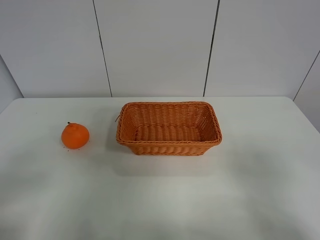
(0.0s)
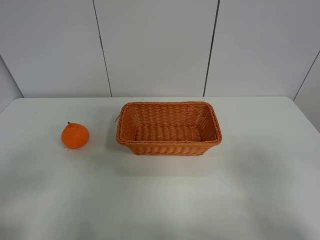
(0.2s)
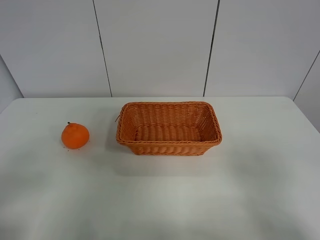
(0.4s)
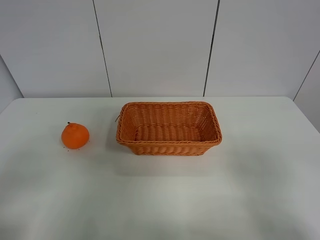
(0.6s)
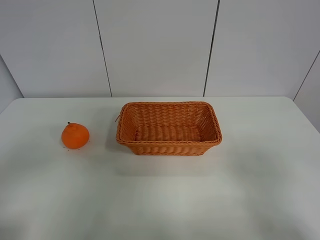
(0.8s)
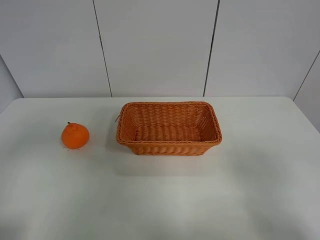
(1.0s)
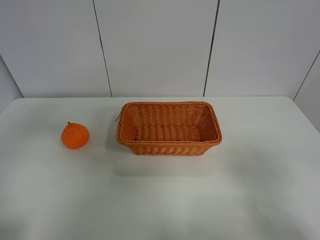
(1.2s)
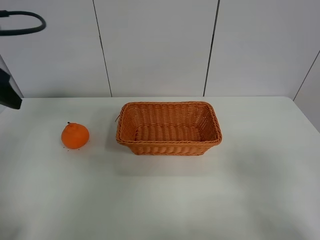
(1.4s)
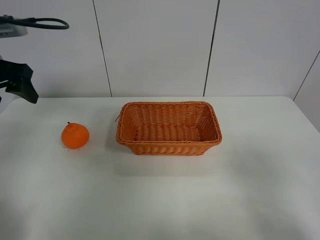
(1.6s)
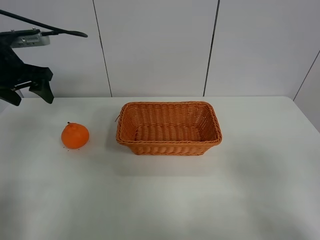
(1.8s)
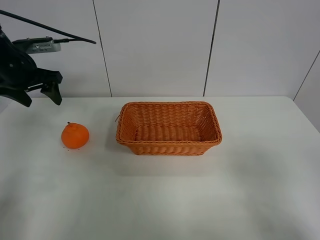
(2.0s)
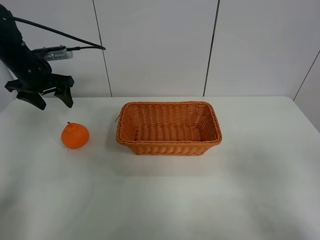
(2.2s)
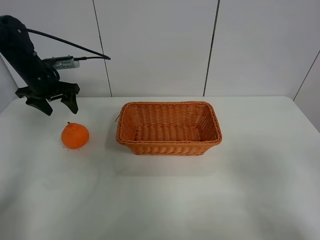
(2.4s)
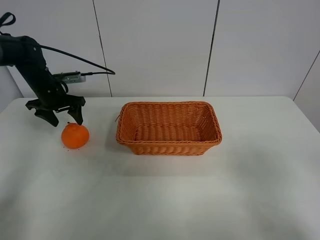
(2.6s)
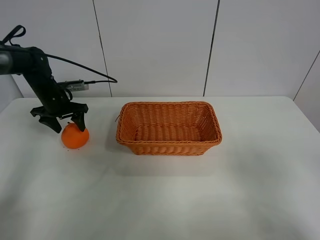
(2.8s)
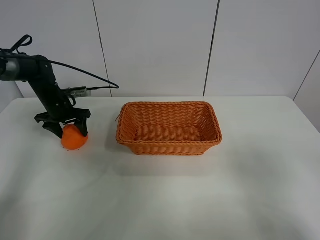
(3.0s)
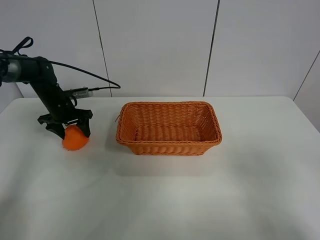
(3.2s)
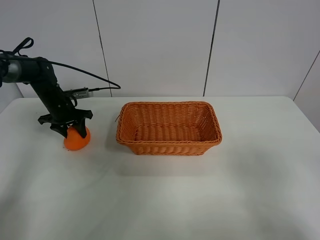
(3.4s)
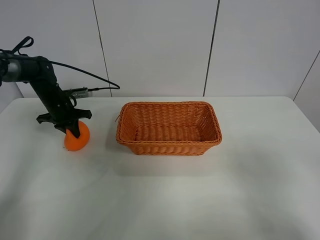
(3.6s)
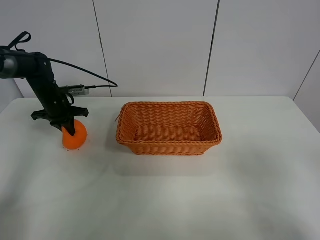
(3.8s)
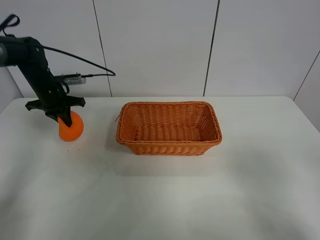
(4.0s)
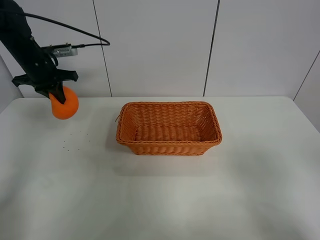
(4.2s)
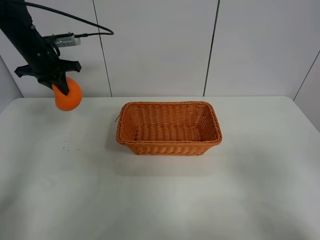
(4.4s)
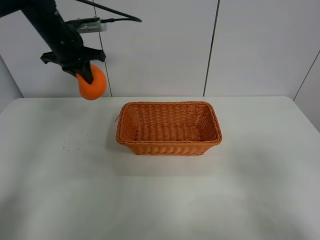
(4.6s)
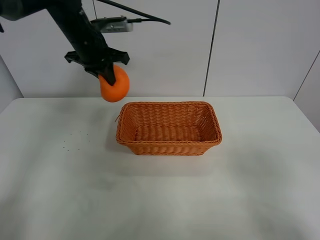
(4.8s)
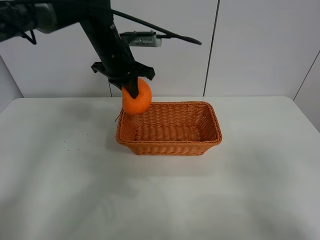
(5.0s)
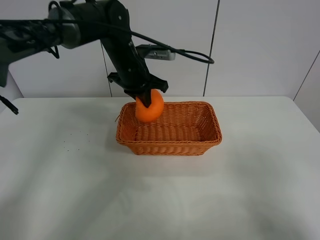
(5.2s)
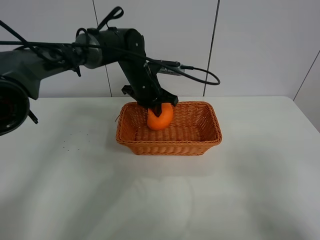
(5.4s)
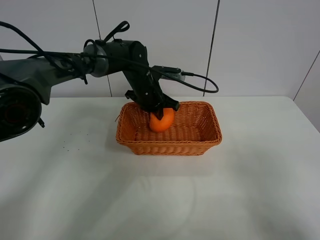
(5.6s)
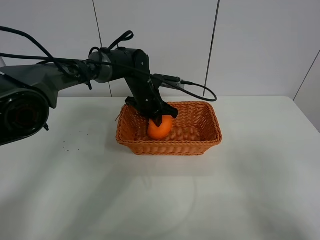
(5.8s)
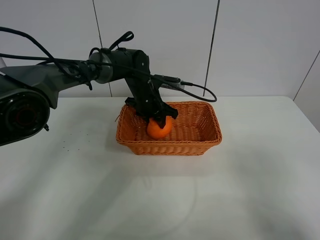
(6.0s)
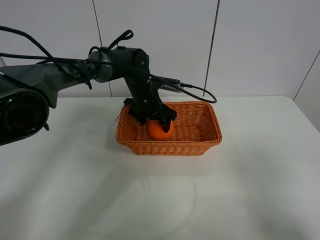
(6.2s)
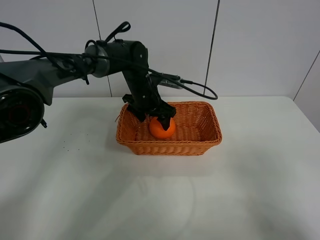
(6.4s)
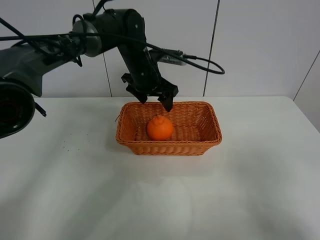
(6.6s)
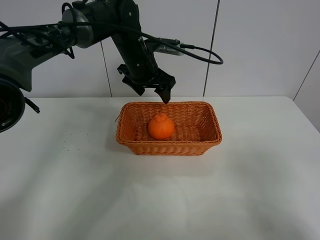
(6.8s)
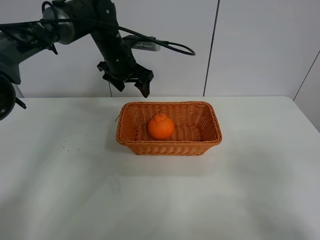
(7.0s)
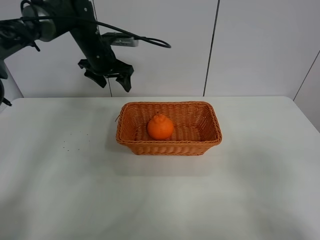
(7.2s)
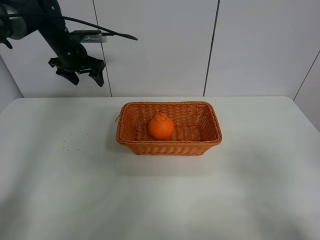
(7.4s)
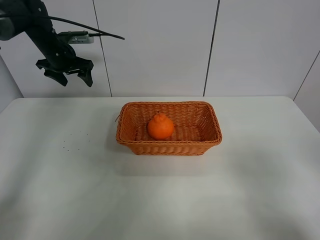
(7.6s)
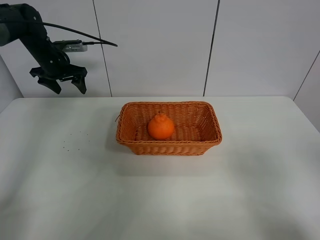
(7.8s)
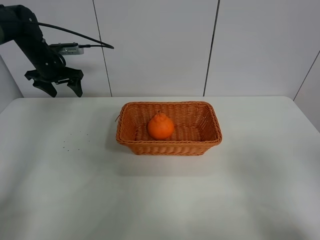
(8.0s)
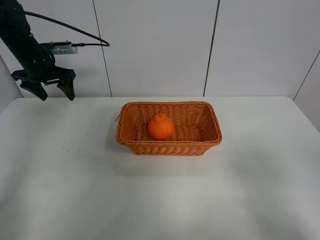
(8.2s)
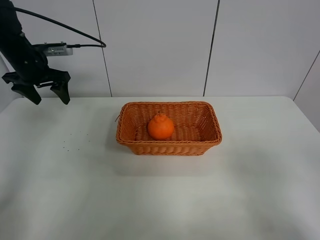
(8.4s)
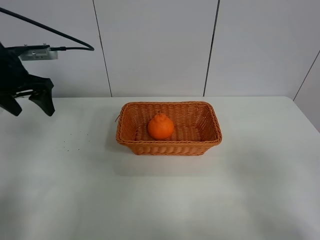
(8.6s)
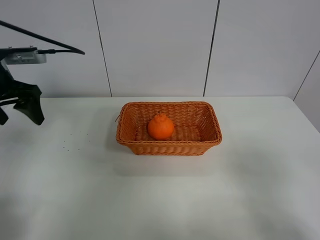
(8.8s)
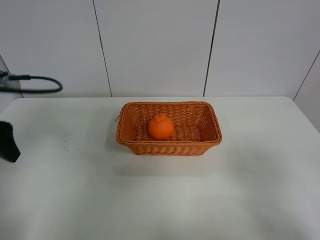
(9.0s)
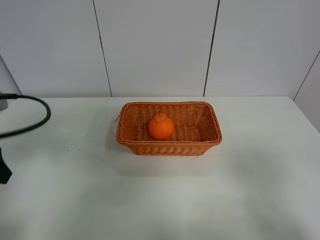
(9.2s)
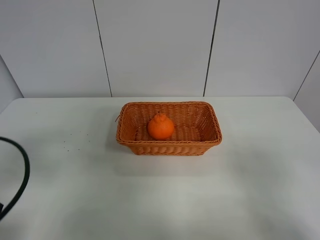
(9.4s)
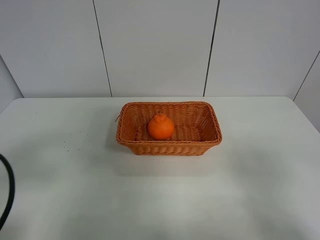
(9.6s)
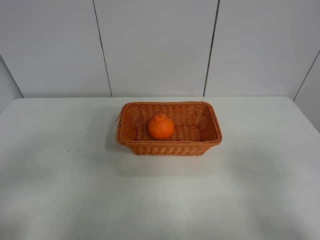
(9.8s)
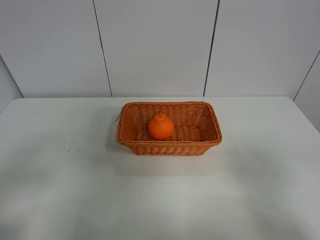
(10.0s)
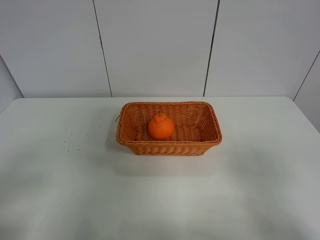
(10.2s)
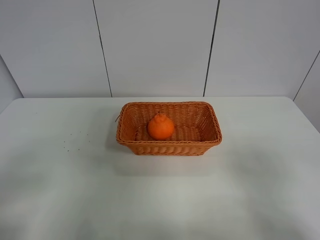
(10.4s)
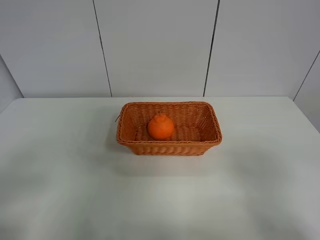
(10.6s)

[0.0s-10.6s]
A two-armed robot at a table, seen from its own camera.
Task of the whole recording: left gripper grabs oranges and puts them in the basket.
Step, 0.0s to 3.6s: Grasp the orange with left gripper.
Step, 3.8s to 7.2s: Place the orange in the basket with left gripper.
0.0s to 1.6s: The left gripper is displaced forward by some 30 cm.
1.6s to 3.0s: The left gripper moves downward and forward, about 25 cm.
3.0s to 4.6s: The left gripper is displaced upward and to the right by some 20 cm, and closes.
4.6s to 6.0s: The left gripper travels to the right and downward by roughly 20 cm, and opens.
6.0s to 7.6s: The left gripper goes some 25 cm to the left, and opens up.
7.6s to 9.0s: The left gripper moves backward, some 30 cm.
9.0s to 10.6s: The left gripper is displaced backward by approximately 20 cm.
